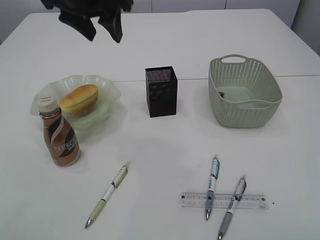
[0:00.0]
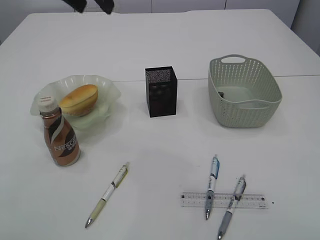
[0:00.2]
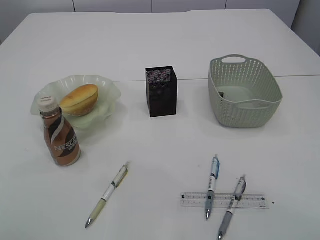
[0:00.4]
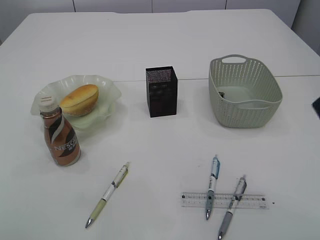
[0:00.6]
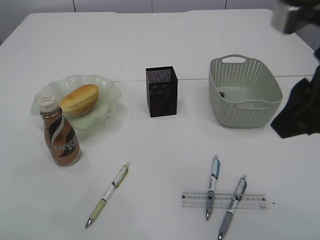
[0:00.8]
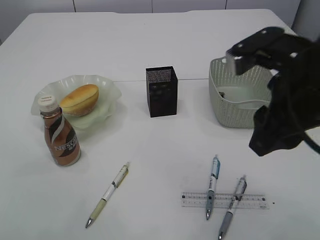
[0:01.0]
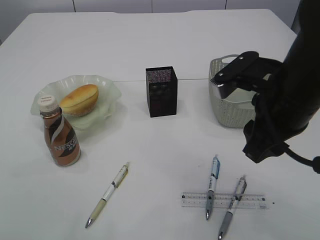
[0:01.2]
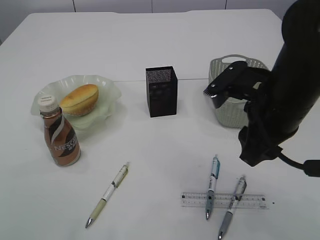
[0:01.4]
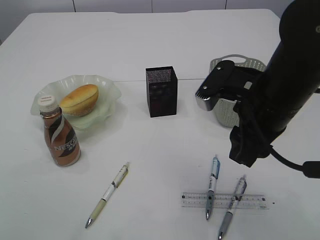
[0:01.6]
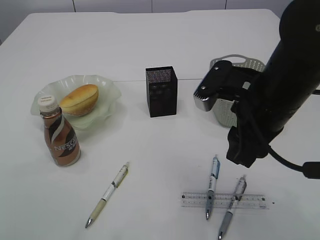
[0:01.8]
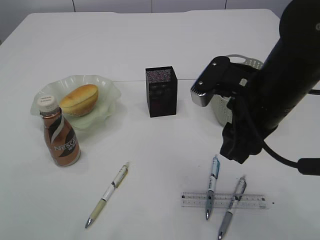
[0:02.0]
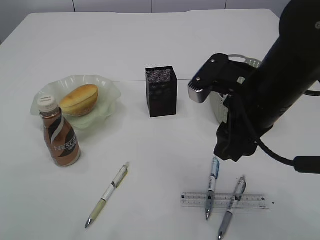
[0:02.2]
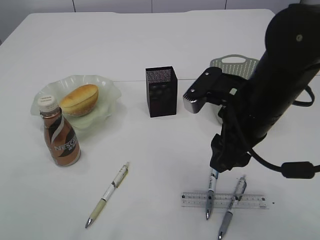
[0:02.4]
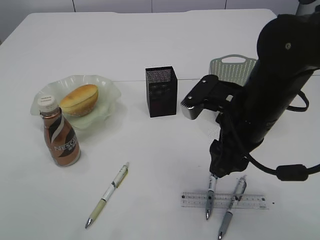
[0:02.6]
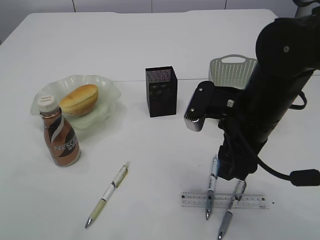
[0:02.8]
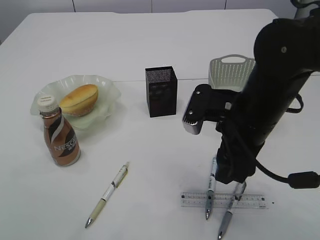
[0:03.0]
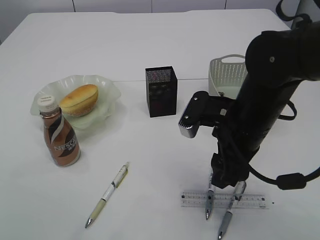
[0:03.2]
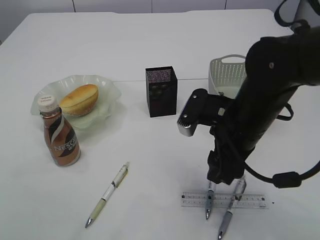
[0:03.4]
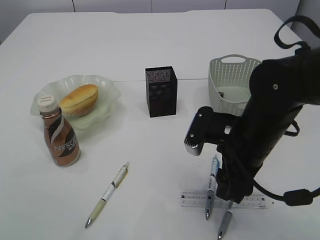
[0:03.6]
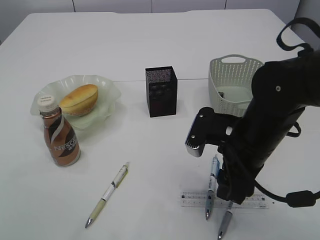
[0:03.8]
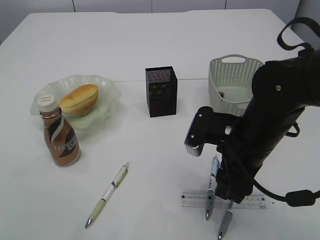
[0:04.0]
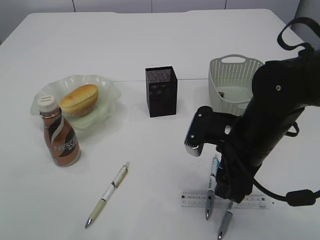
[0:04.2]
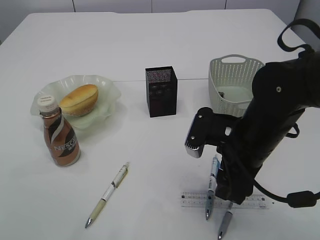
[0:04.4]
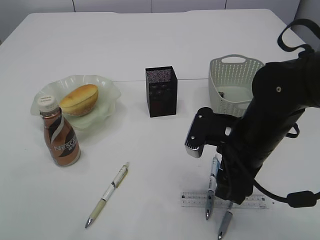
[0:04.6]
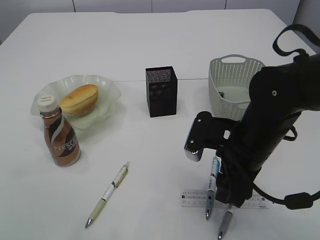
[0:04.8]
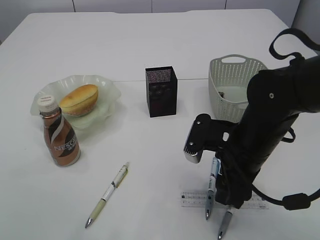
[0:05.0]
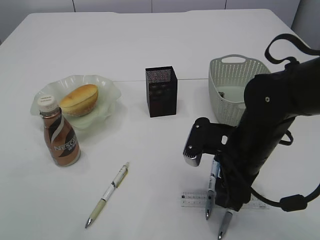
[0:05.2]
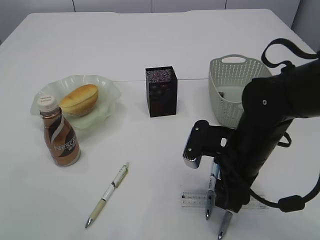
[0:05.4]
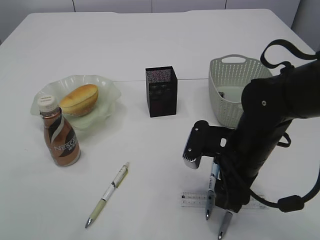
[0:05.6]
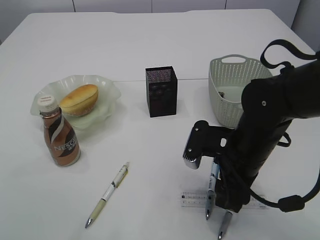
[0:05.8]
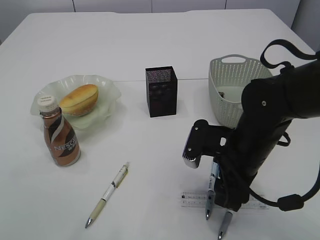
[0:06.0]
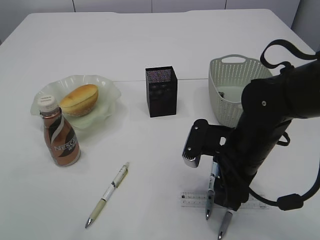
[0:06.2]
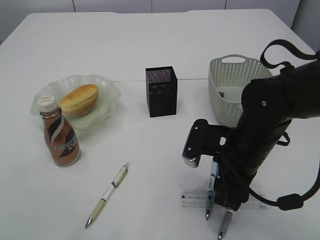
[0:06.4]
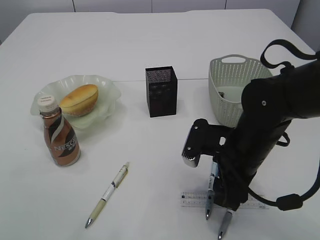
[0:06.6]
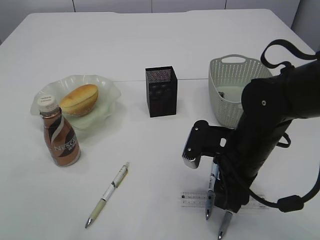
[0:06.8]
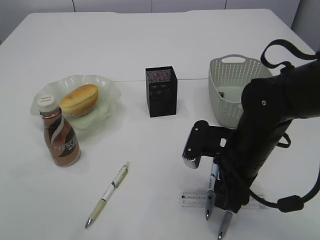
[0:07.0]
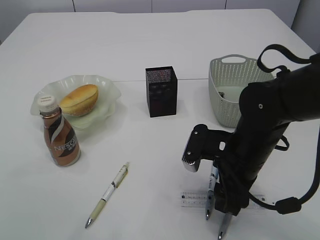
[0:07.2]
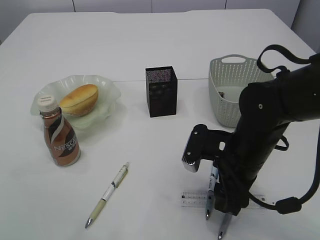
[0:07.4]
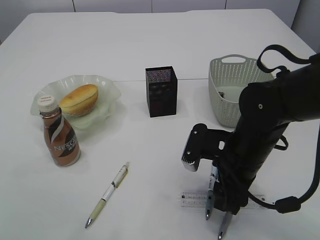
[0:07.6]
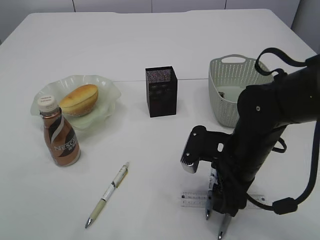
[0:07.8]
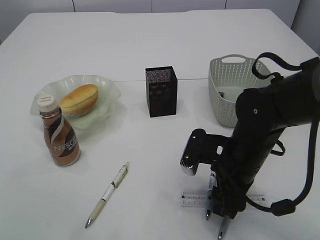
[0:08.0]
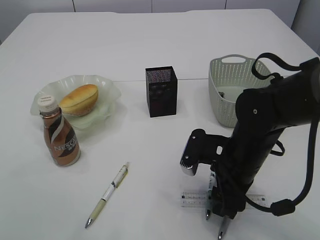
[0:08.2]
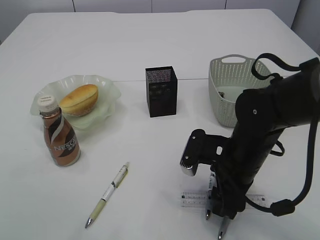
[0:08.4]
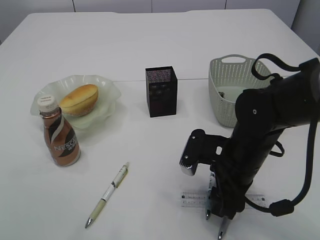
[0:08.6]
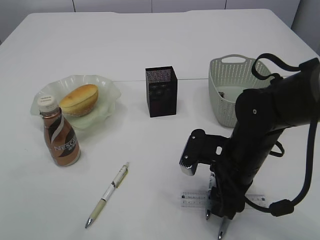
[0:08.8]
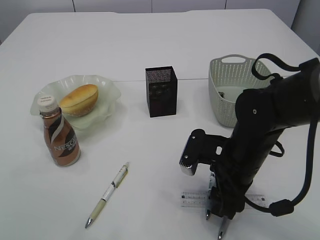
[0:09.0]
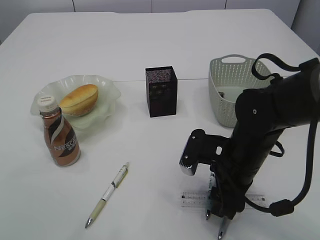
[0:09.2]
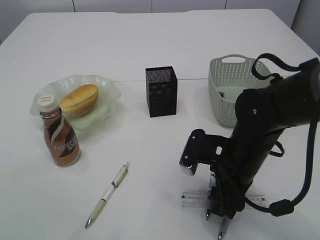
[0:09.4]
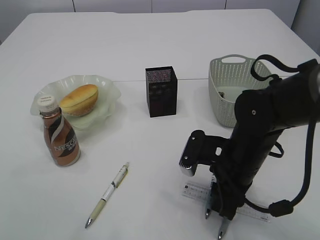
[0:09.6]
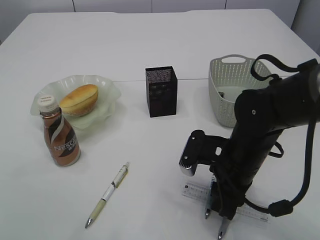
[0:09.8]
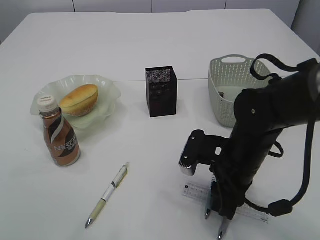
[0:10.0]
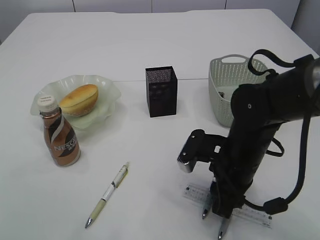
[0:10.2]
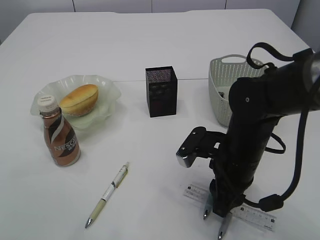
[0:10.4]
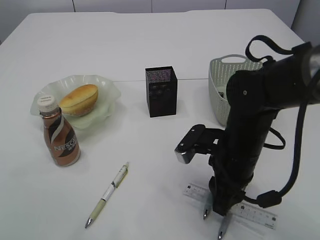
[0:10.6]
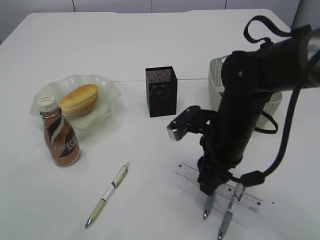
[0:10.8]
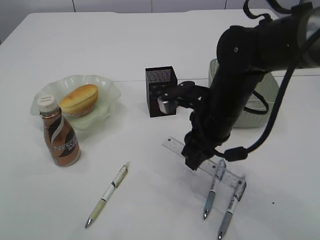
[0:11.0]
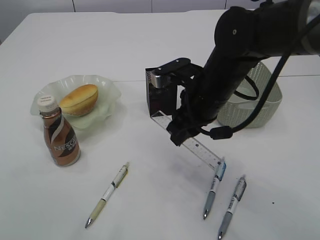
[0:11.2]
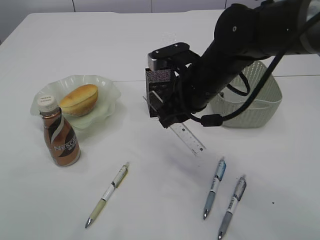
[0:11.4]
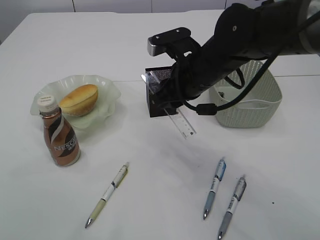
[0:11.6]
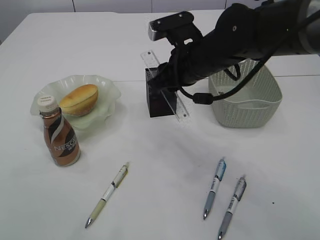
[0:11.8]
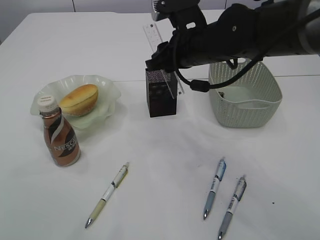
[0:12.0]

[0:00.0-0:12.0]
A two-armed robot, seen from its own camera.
Step, 0:00.0 to 0:11.0: pick up the ruler.
0:00.0 to 0:01.6: The left gripper heads backward, upward and to the left, covering roughly 25 cm. The right gripper heads forward, to the left and downward, covering roughly 25 cm.
0:01.6 to 0:03.0: The grippers stay close to where they were, moving slightly.
0:03.0 to 0:04.4: The grippers move only a little.
0:04.4 to 0:06.0: The grippers make only small movements.
0:06.0 to 0:07.6: The two grippers keep their place.
0:07.6 to 0:09.0: Both grippers stay put.
0:09.0 to 0:10.4: The right gripper closes its fingers.
0:10.4 to 0:12.0: The right gripper travels upward and forward by roughly 15 cm.

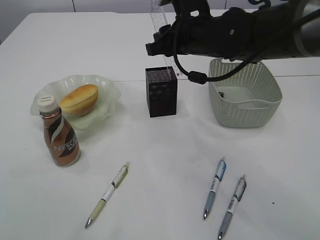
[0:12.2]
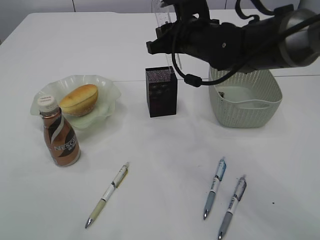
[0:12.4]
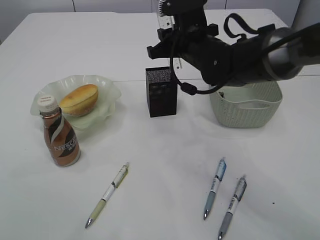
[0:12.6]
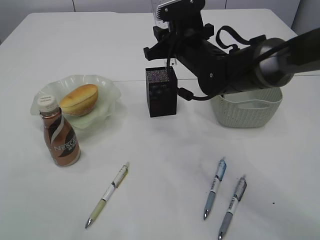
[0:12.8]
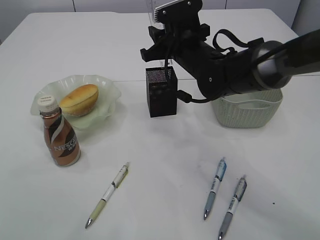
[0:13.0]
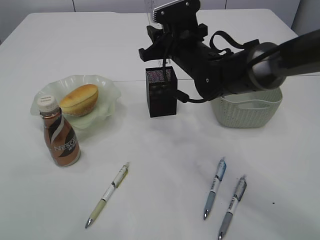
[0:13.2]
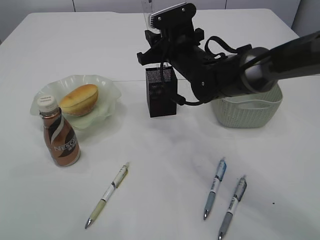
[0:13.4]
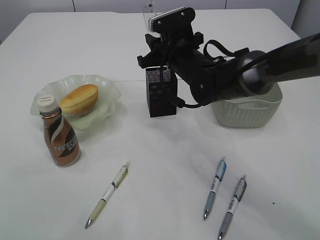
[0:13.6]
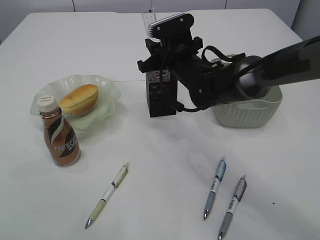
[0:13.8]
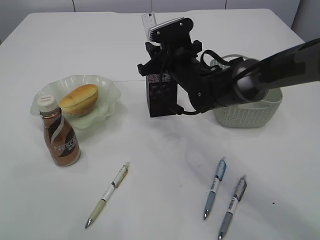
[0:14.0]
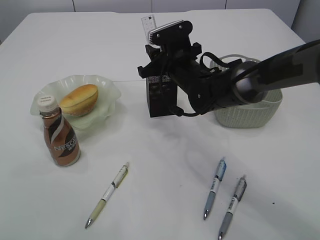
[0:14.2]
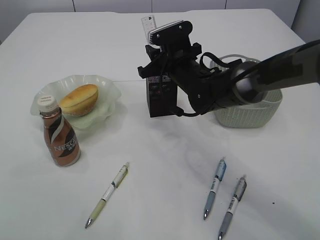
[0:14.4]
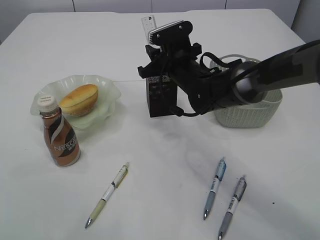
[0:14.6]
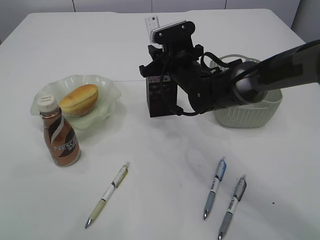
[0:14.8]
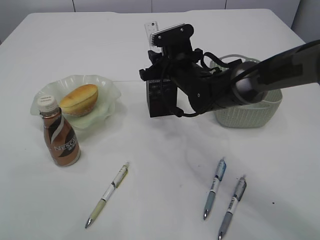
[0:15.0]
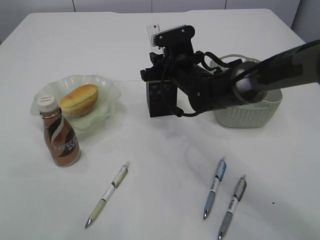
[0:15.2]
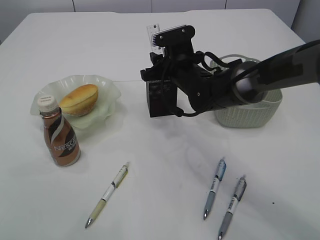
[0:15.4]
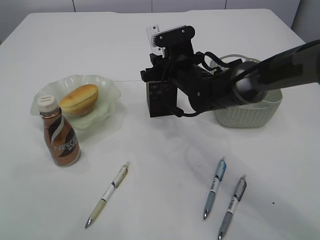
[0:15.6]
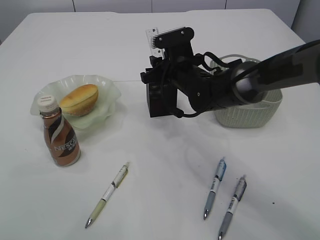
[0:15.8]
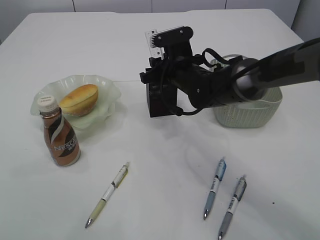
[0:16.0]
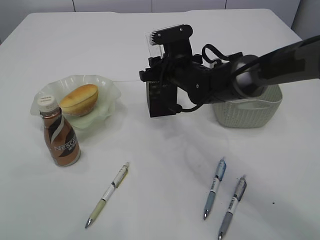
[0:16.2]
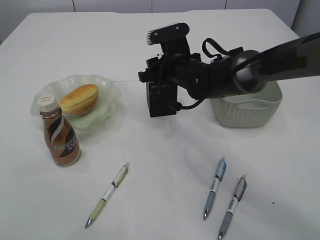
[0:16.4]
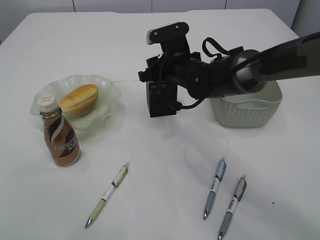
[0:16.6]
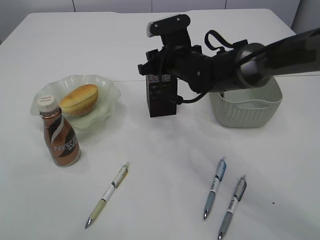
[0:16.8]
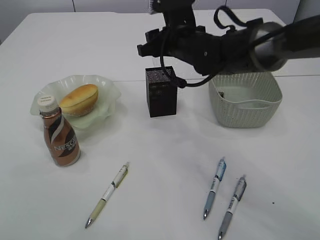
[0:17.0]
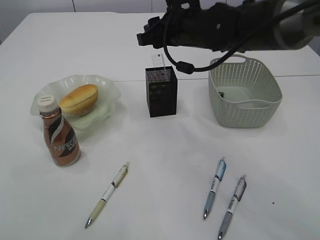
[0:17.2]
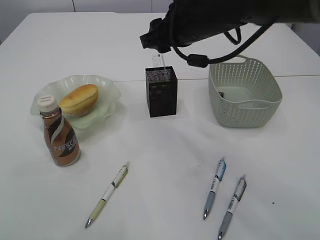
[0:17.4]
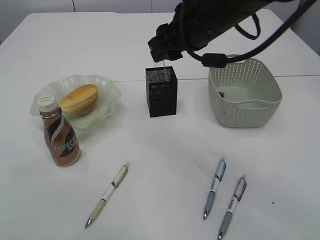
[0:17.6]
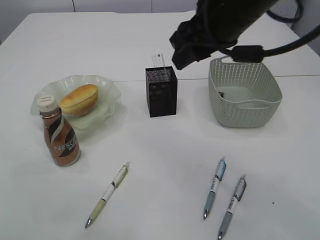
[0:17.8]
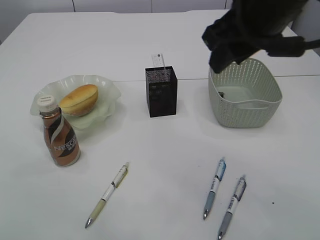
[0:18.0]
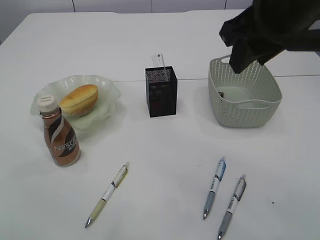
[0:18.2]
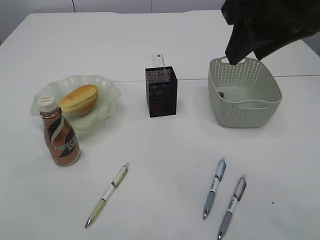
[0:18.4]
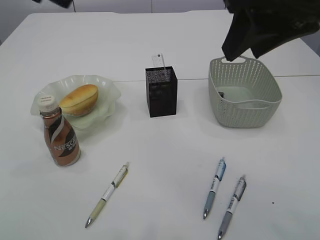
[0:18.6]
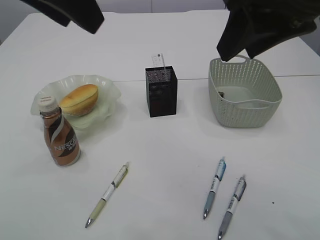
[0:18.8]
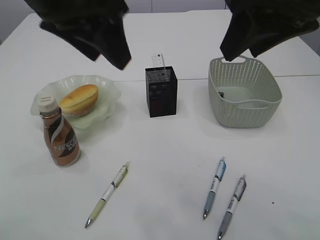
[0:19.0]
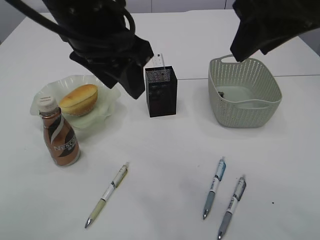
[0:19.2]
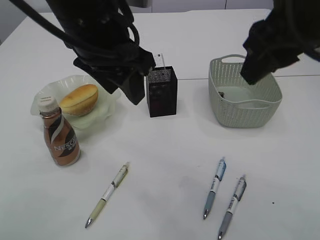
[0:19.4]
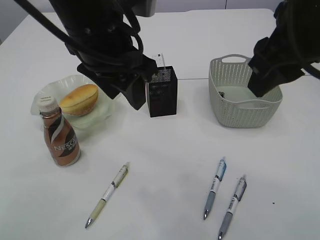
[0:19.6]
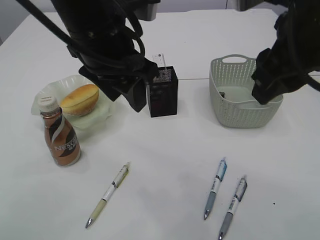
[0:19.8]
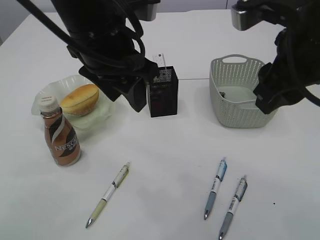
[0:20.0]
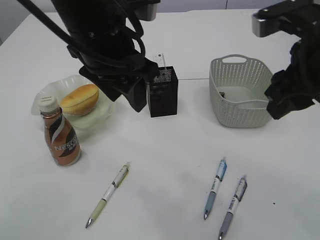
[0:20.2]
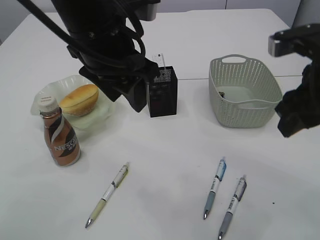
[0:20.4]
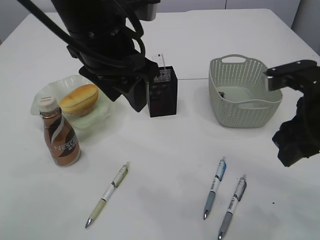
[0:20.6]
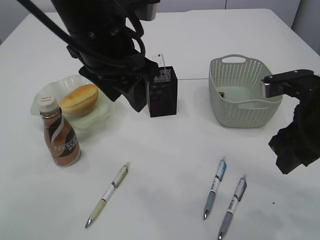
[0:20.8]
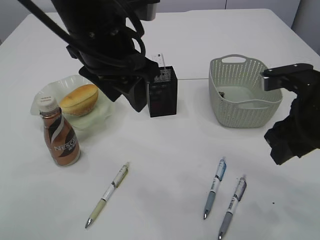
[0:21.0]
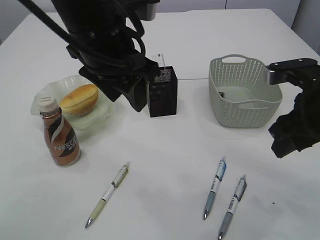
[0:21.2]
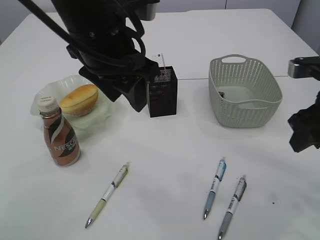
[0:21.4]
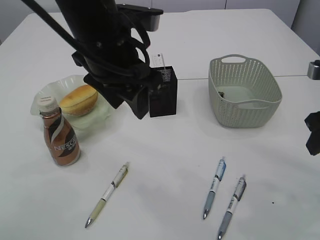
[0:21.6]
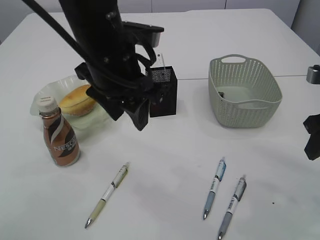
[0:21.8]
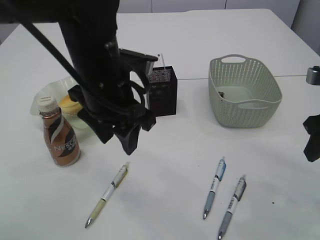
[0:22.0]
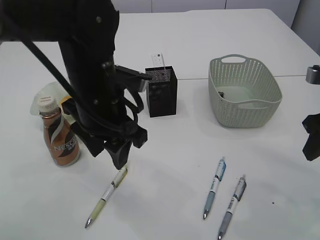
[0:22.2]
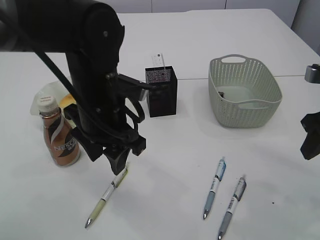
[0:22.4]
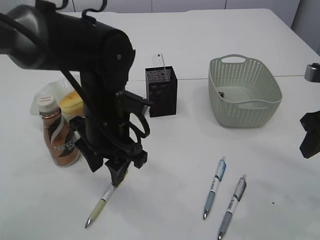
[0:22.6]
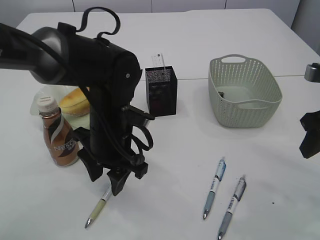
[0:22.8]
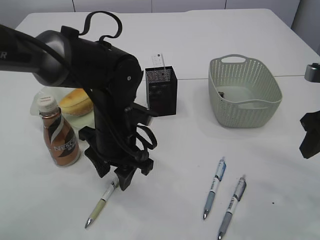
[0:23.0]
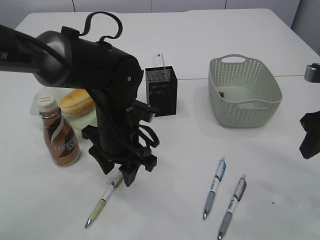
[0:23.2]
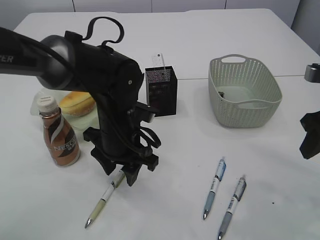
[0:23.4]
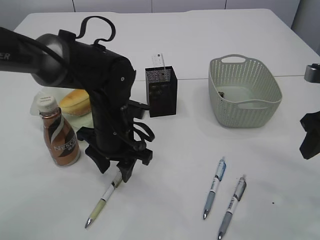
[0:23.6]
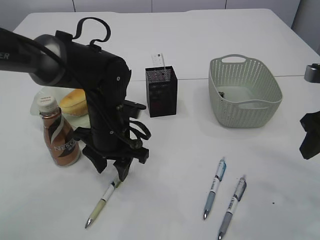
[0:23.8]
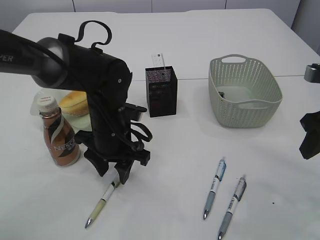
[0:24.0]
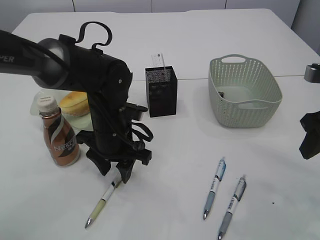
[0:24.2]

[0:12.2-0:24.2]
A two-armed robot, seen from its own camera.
Step, 0:12.2 to 0:17.2: Place the ruler into the pen holder.
0:12.2 to 0:13.8: The right gripper shifts about 5 cm downward.
0:13.8 to 0:16.6: The grippers move only a little.
0:16.6 to 0:18.2: The right gripper is displaced upward, backward and to the right by some 30 cm.
0:18.2 to 0:19.8: The left gripper is displaced downward, to the right and forward by some 20 cm.
0:19.8 to 0:21.2: The right gripper goes approximately 15 cm downward and to the right.
0:21.2 to 0:22.6: The left gripper moves downward, roughly 15 cm. Meanwhile the right gripper moves to the right, some 5 cm.
0:22.6 to 0:24.2: The left gripper goes about 5 cm downward.
